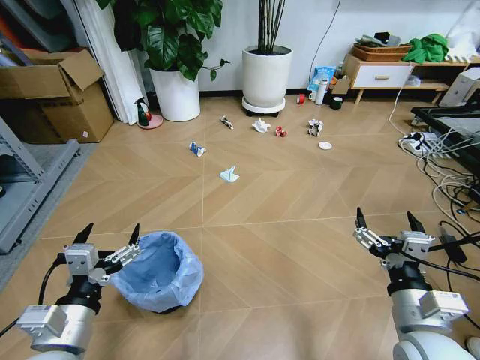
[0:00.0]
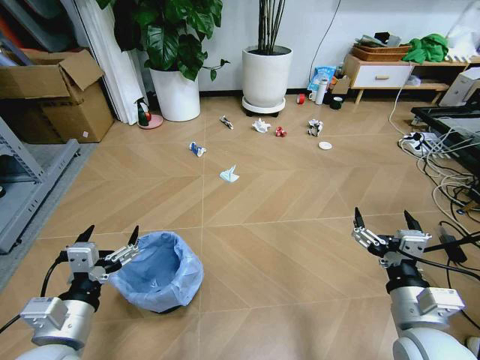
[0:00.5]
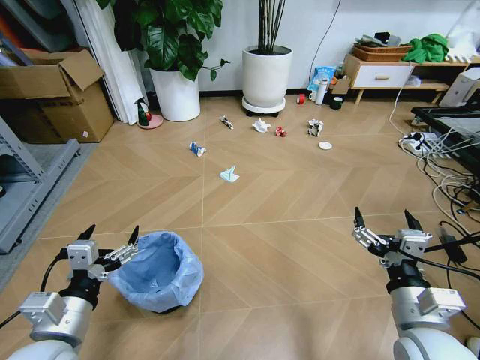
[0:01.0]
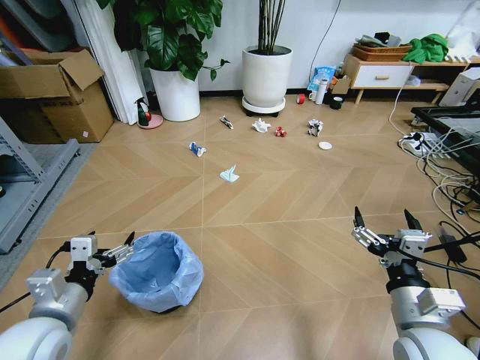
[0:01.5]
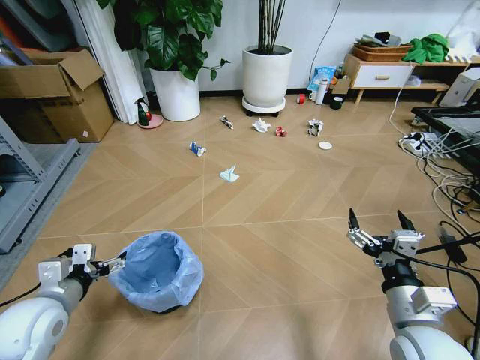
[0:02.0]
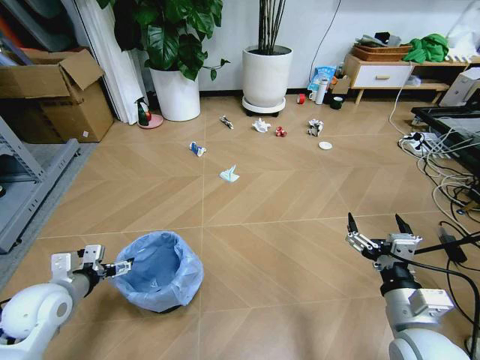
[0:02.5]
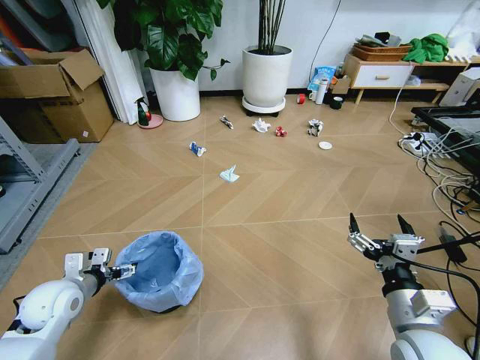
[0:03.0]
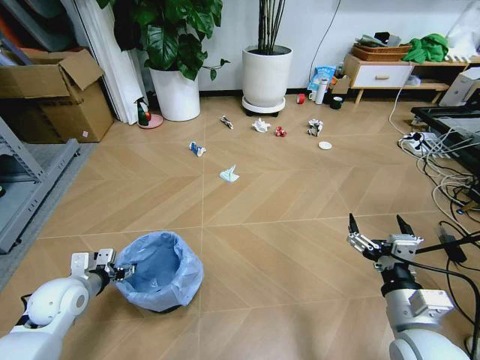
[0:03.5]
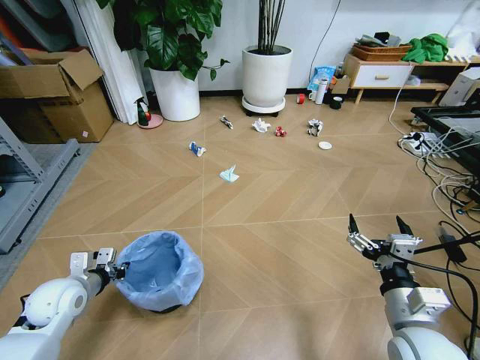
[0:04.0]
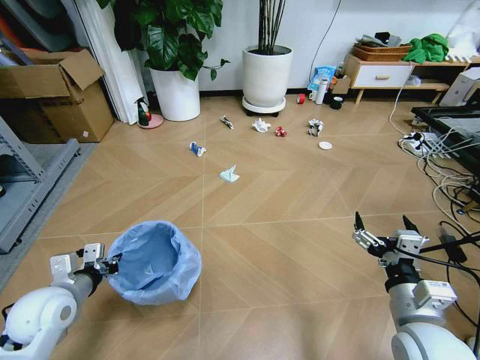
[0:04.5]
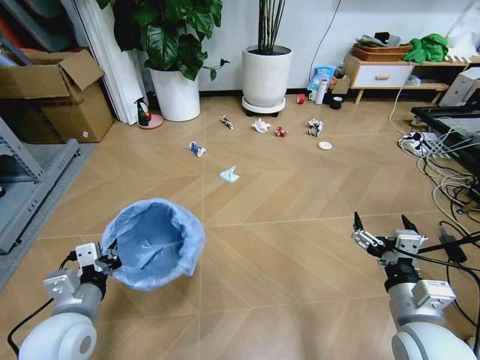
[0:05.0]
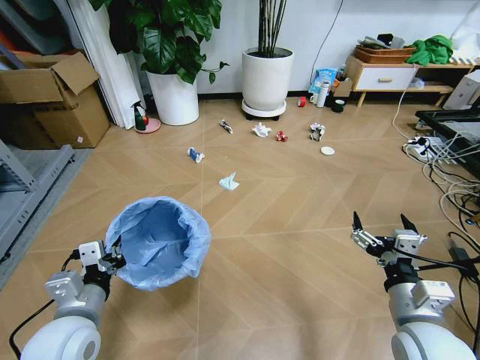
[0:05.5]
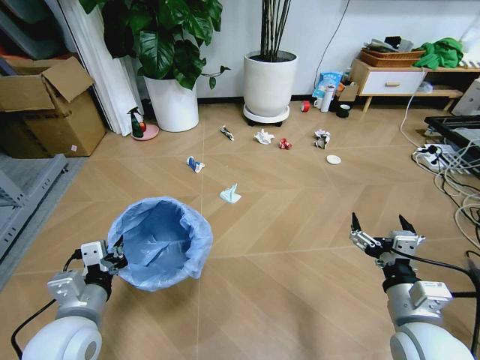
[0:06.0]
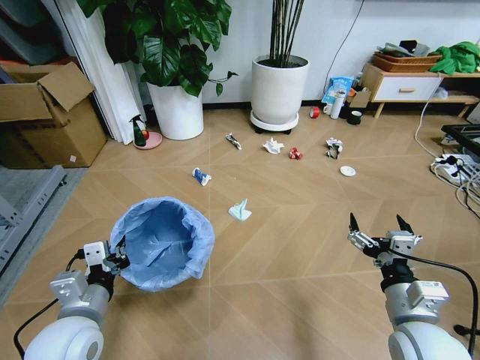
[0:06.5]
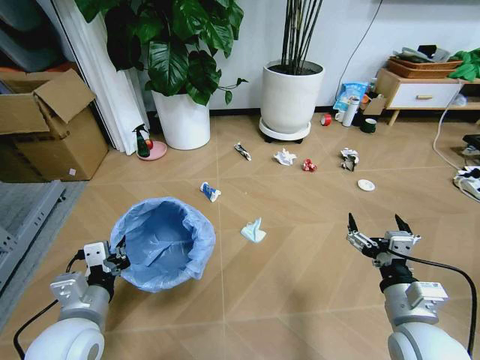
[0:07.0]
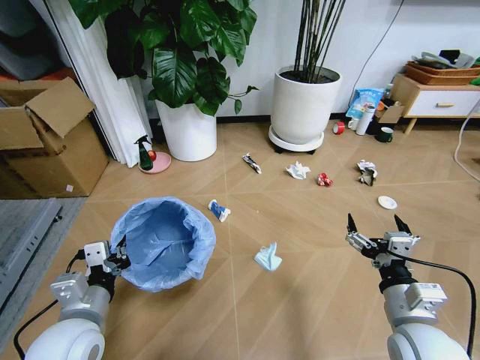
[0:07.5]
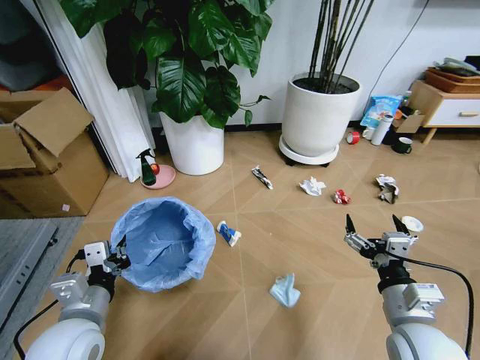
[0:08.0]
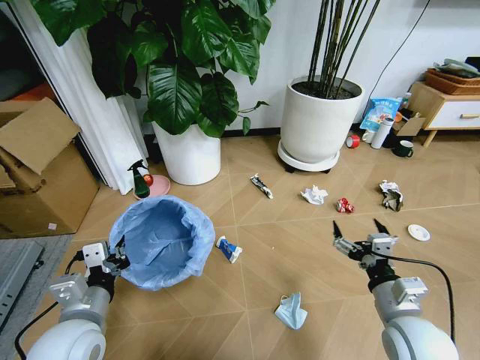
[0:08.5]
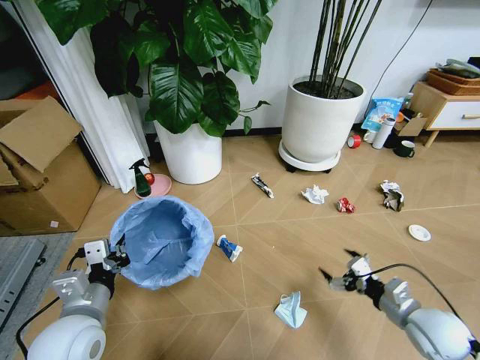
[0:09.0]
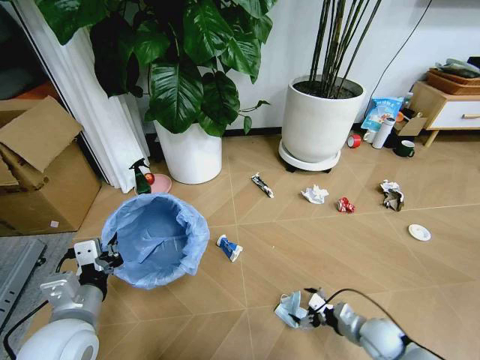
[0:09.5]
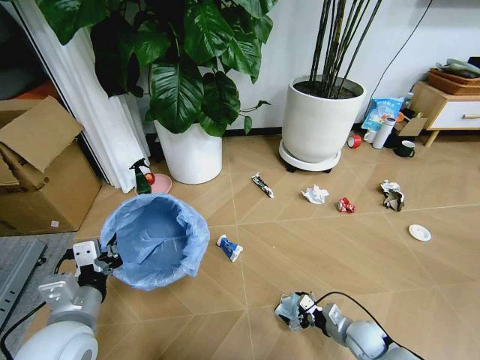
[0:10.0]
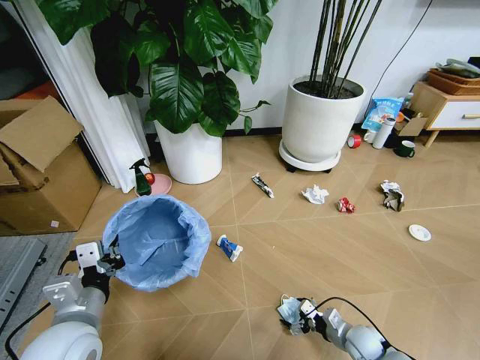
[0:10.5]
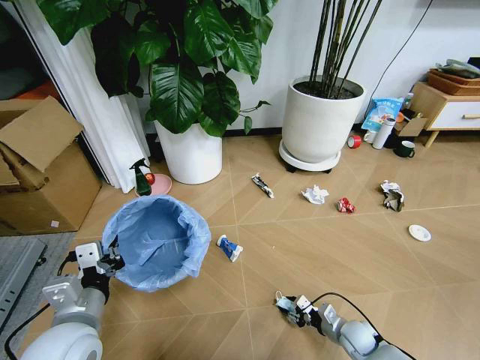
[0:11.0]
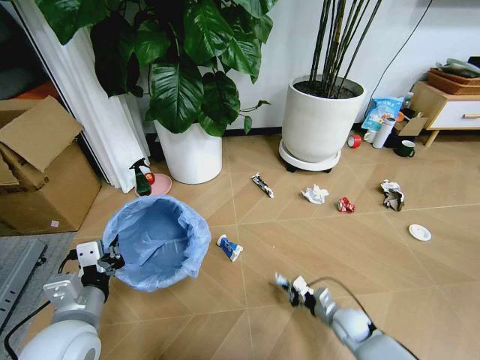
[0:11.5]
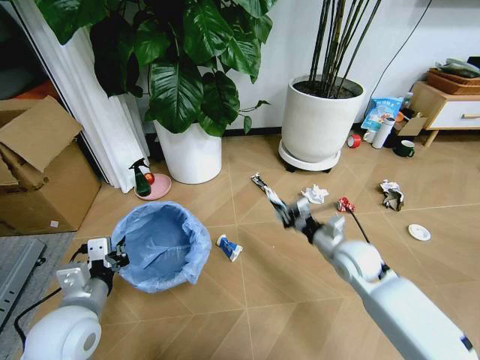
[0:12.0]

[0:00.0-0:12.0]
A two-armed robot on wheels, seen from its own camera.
Task of the whole recording: Pick up the trash bin and place the garbage on the floor into it.
0:02.0 to 0:04.0: The left gripper shifts approximately 10 cm forward and downward, and closes its fingers.
0:04.0 to 0:06.0: The left gripper goes about 15 cm to the right, backward and upward.
0:08.0 to 0:10.0: The right gripper goes roughly 25 cm downward.
0:10.0 to 0:12.0: The right gripper goes about 25 cm upward and forward, and closes its fingers.

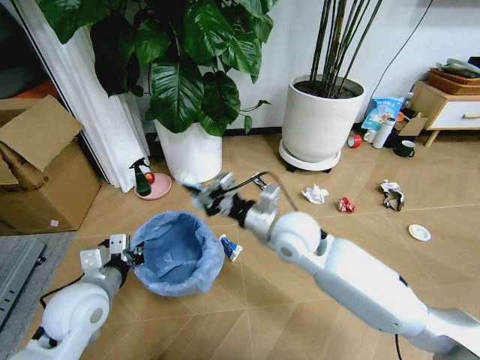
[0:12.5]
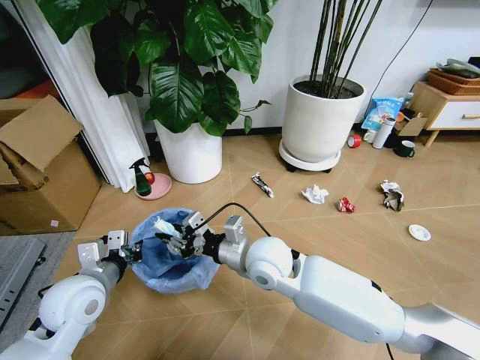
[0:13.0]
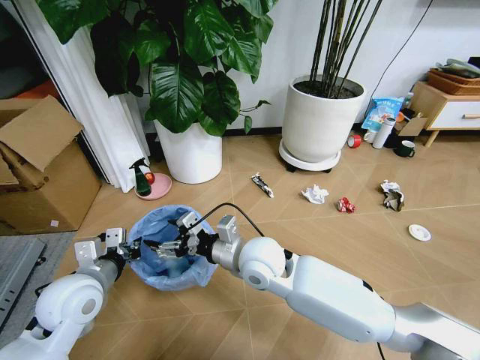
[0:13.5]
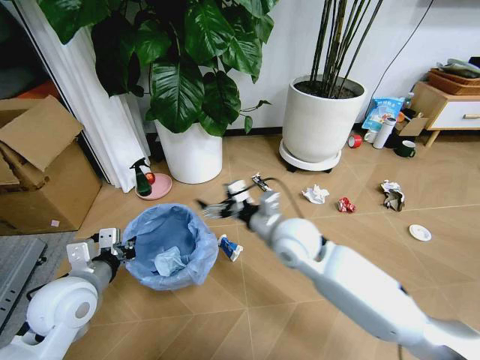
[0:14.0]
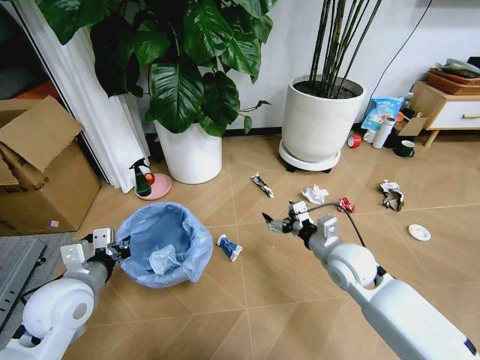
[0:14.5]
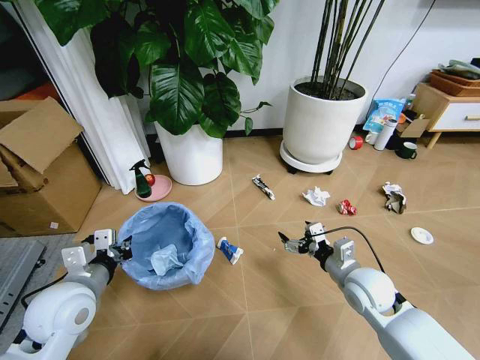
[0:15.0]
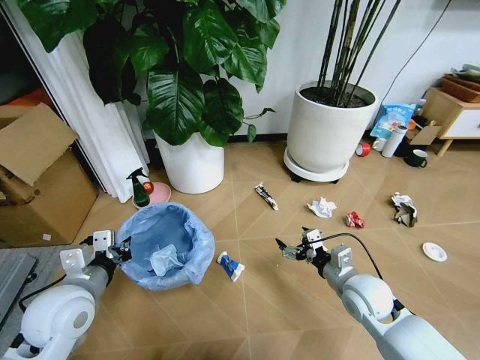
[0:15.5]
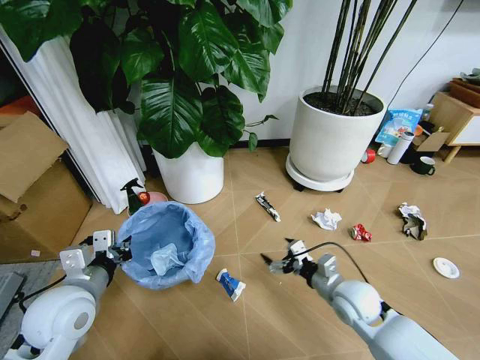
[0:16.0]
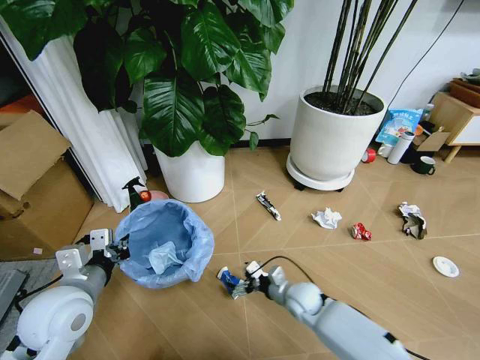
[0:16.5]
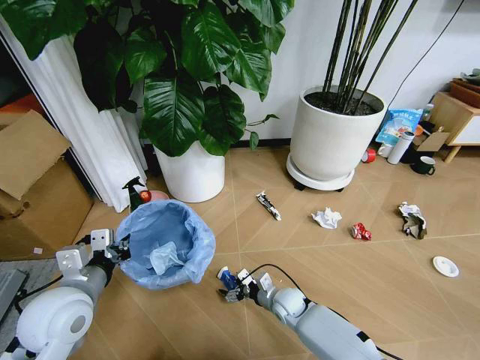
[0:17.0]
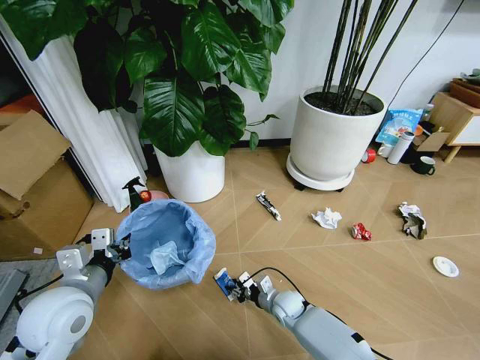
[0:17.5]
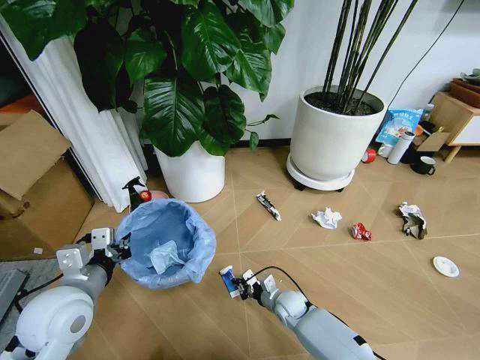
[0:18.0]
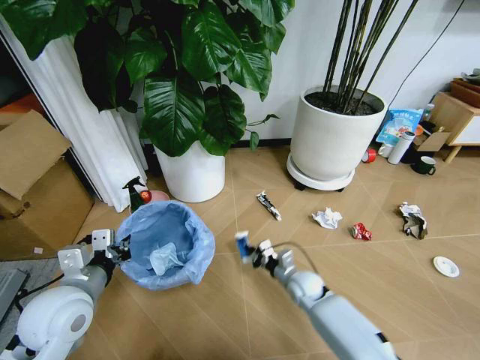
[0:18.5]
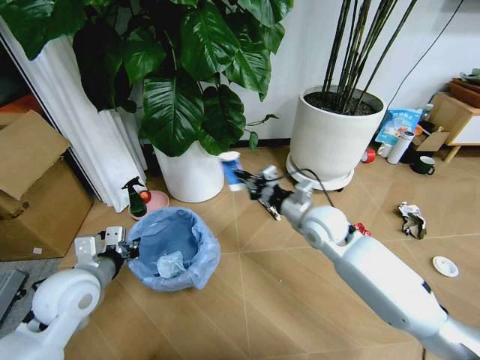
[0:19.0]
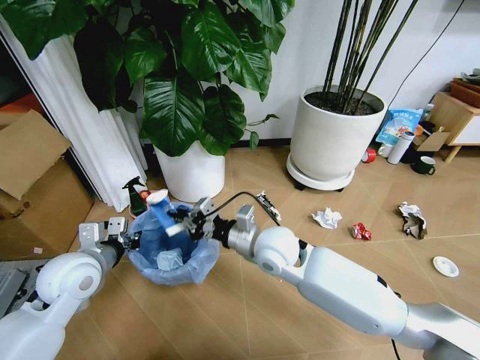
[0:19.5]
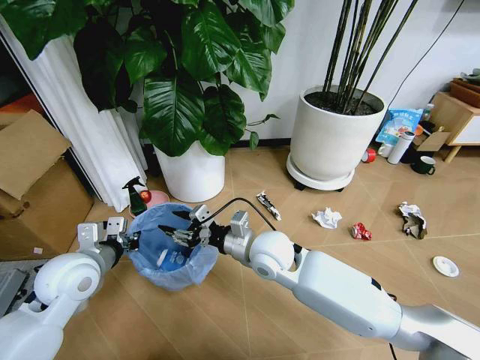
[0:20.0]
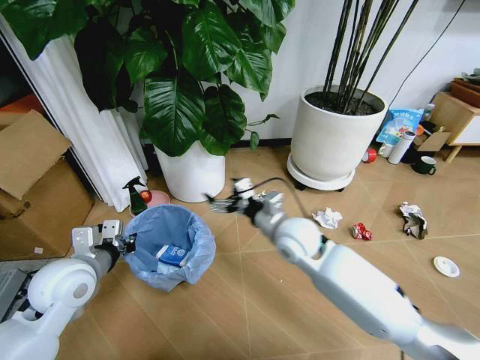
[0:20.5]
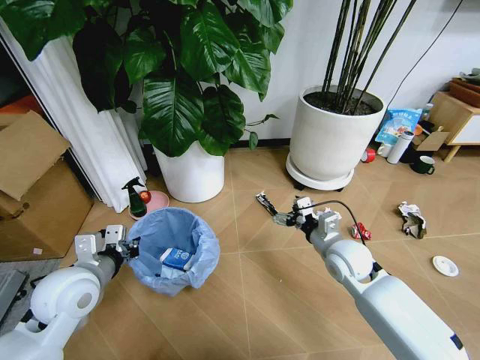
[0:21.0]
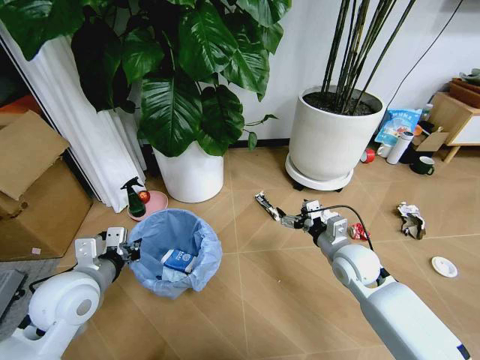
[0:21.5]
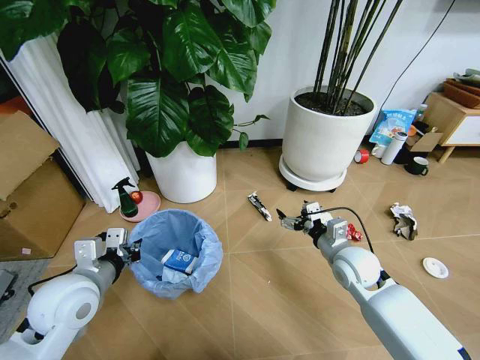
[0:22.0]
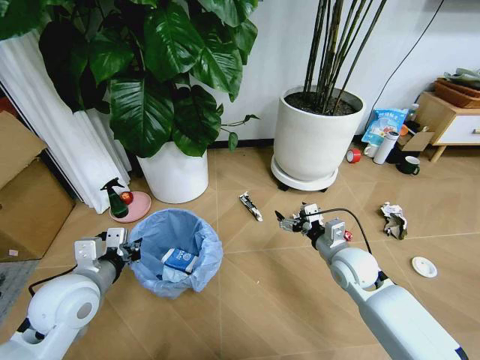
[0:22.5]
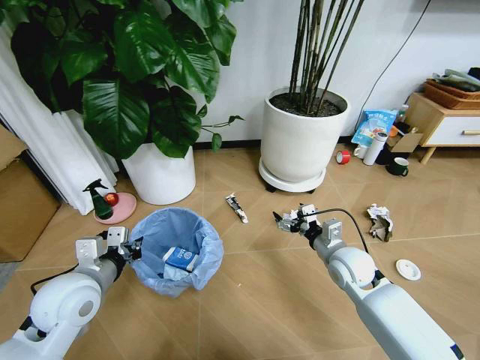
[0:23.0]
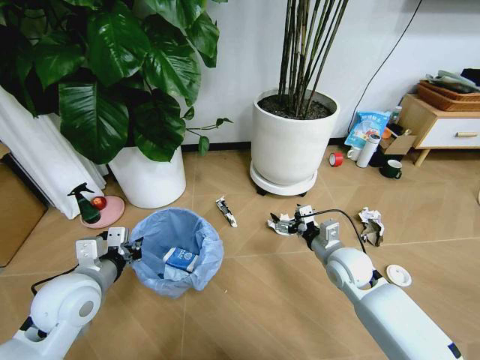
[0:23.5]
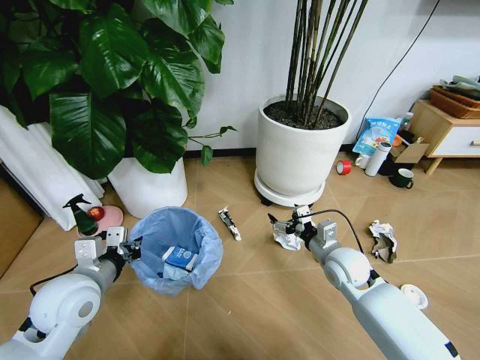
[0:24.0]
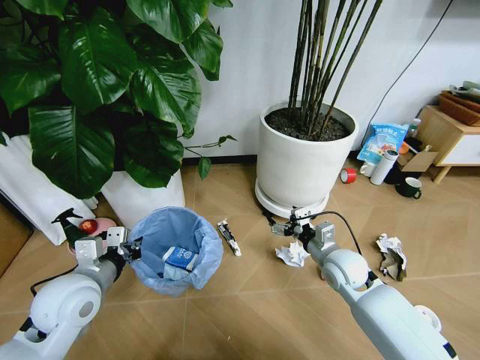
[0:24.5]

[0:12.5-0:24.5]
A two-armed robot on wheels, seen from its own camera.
Task of the whole recording: Pick up the trash bin and place the garbage on the floor into it.
0:12.5 to 0:14.5: The right gripper travels to the right and downward by about 15 cm, and opens its fingers.
0:14.5 to 0:16.5: The right gripper moves downward, about 20 cm.
0:16.5 to 0:18.5: The right gripper travels downward and back again, about 10 cm each way, and closes up.
0:18.5 to 0:20.5: The left gripper changes place by roughly 5 cm; the right gripper heads upward, covering some 20 cm, and opens.
0:20.5 to 0:22.5: The right gripper heads to the right and downward, covering roughly 15 cm.

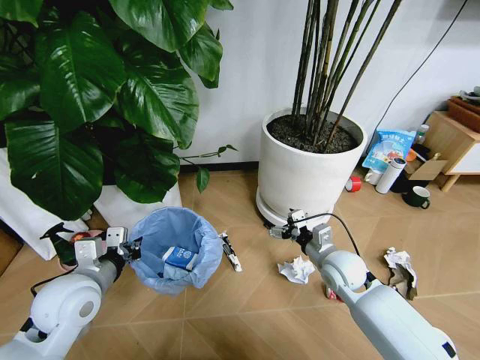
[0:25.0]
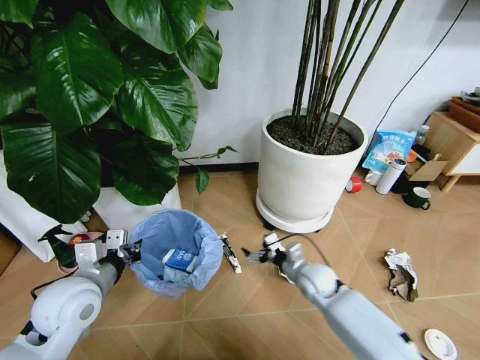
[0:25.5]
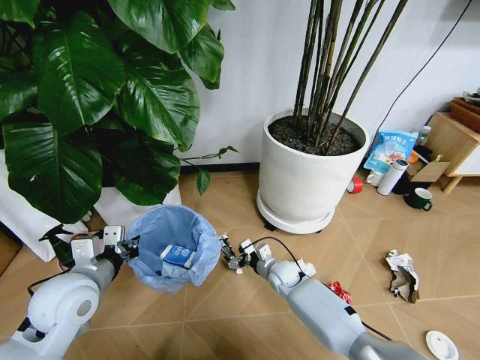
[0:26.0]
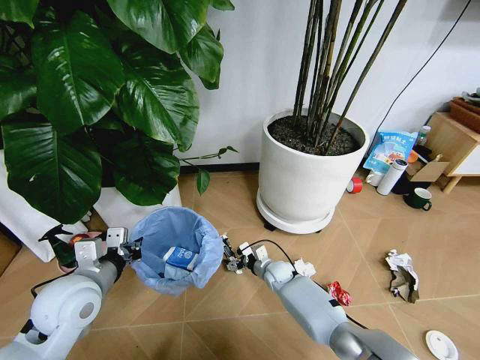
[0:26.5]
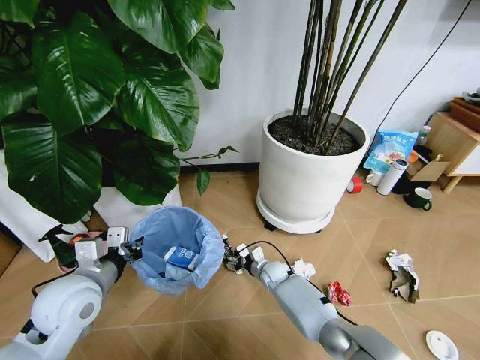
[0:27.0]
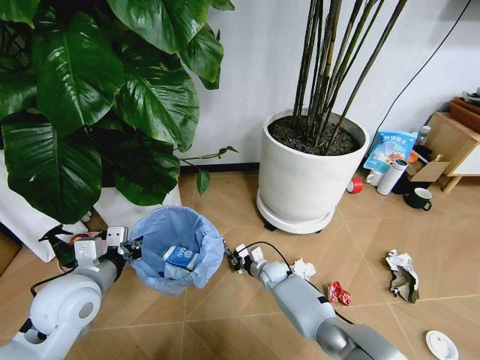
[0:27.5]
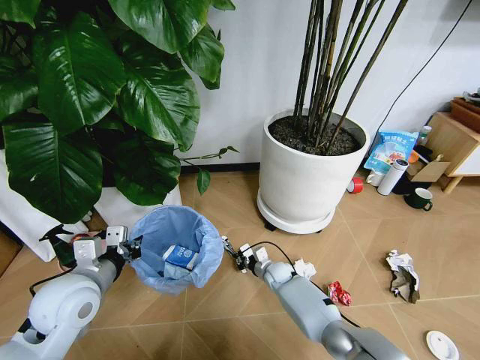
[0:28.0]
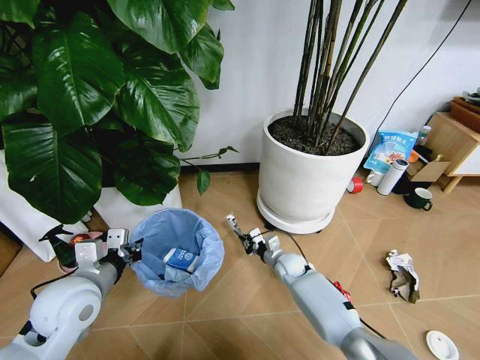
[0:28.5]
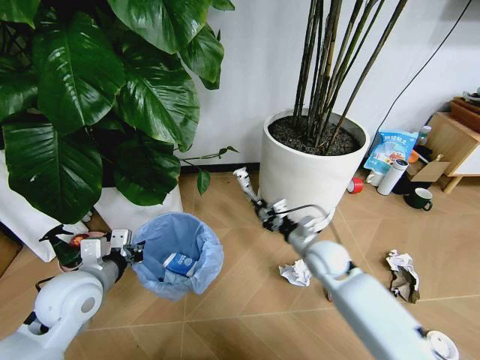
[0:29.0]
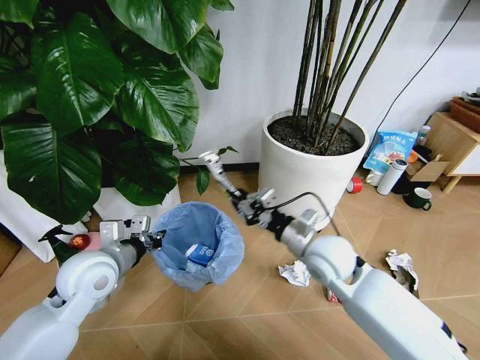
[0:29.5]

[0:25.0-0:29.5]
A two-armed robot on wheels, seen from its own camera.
Task of the whole recording: Pick up the trash bin and place the garbage on the floor into it.
0:25.0 to 0:27.0: The right gripper goes roughly 25 cm downward, to the left and forward.
0:27.0 to 0:29.5: The right gripper is displaced upward by roughly 30 cm, and closes its fingers.
